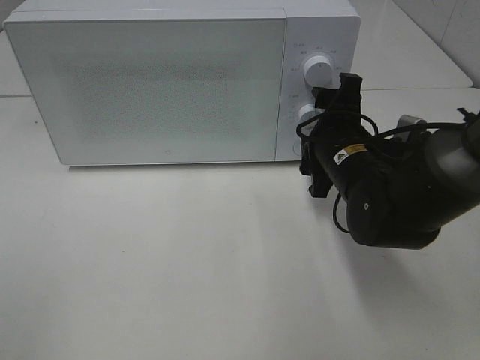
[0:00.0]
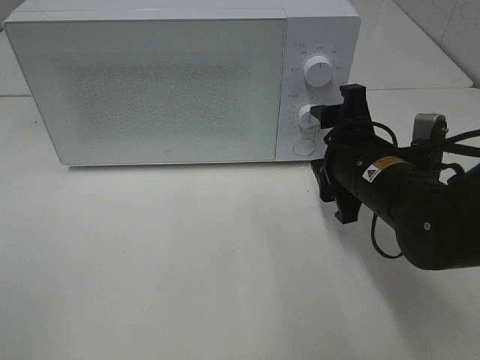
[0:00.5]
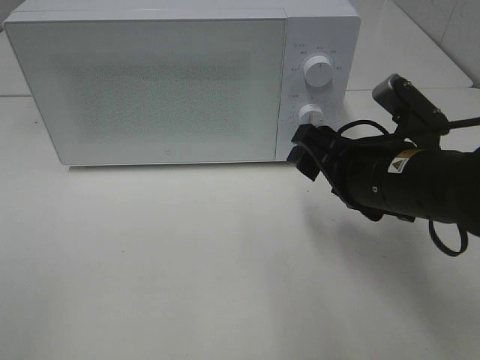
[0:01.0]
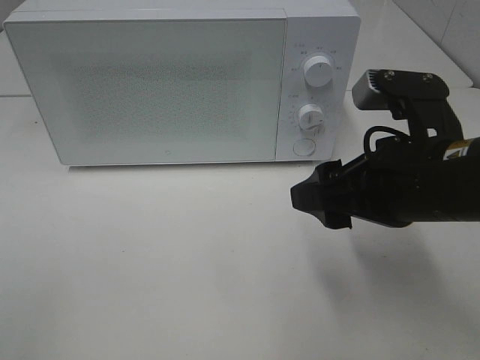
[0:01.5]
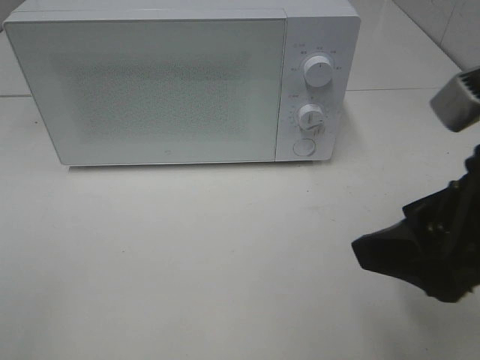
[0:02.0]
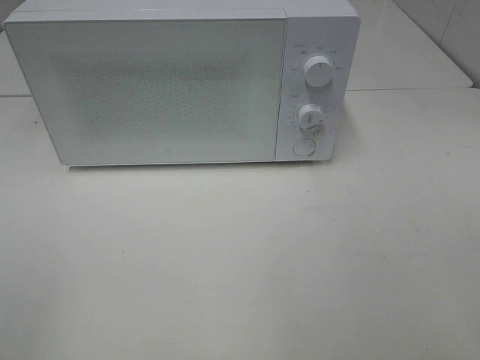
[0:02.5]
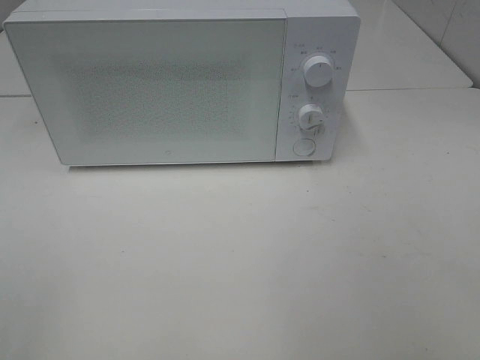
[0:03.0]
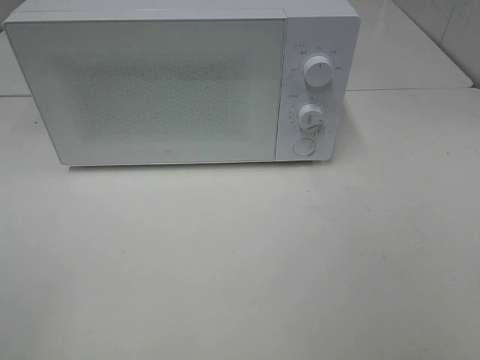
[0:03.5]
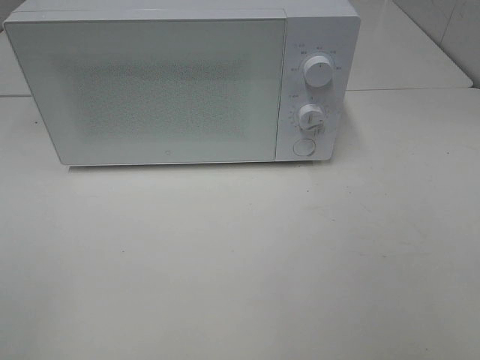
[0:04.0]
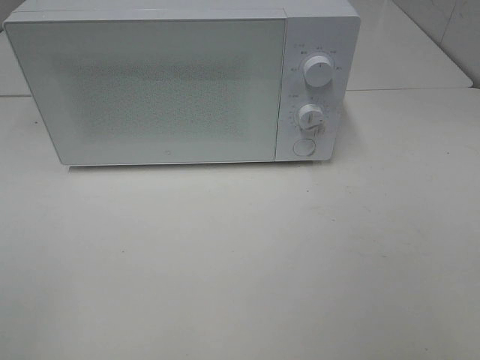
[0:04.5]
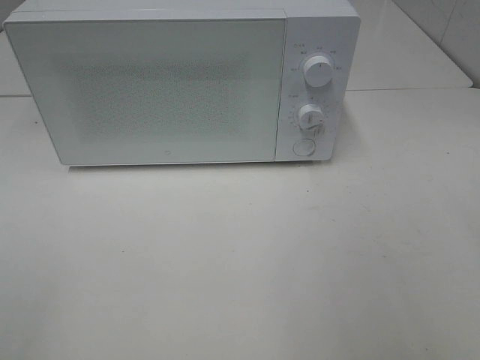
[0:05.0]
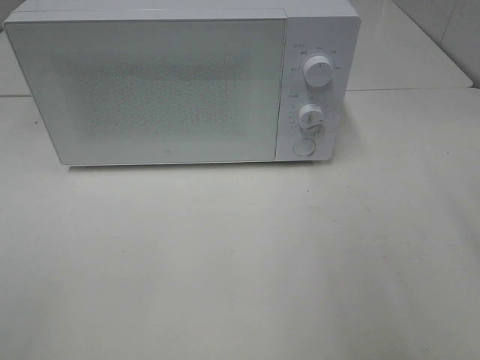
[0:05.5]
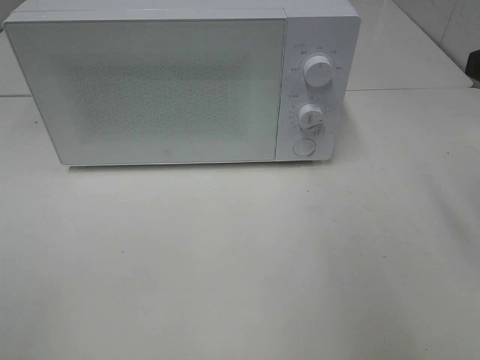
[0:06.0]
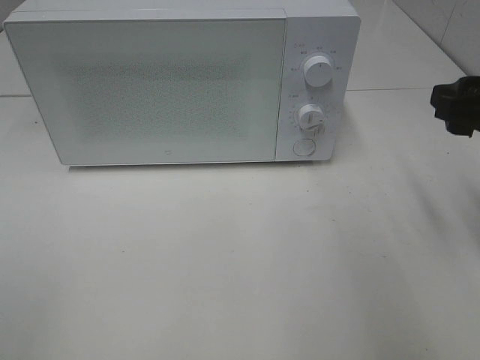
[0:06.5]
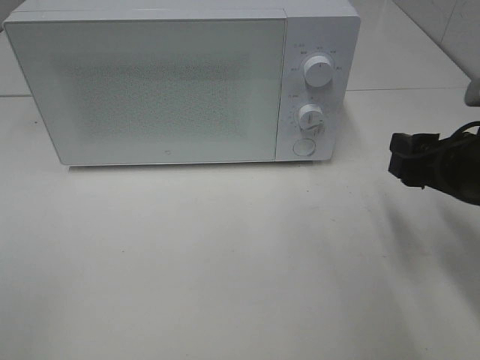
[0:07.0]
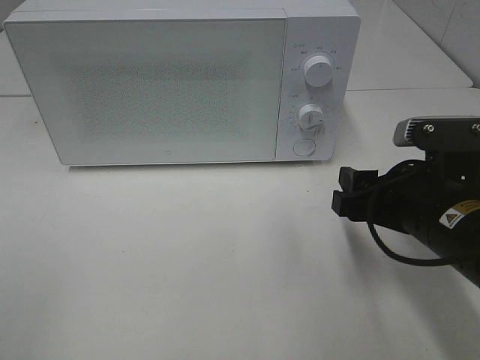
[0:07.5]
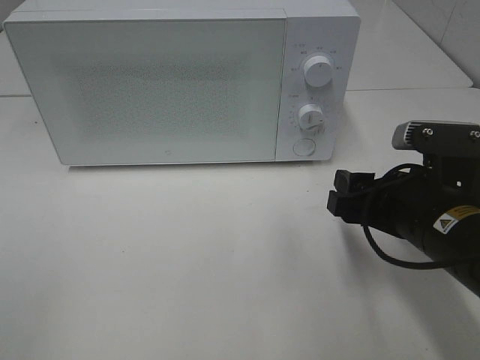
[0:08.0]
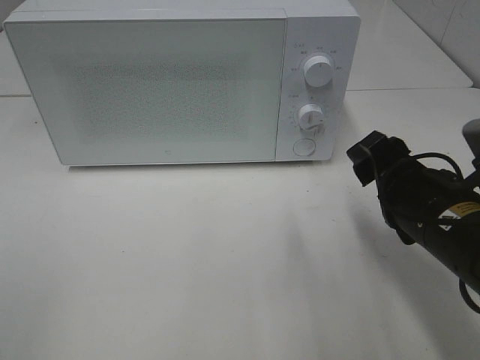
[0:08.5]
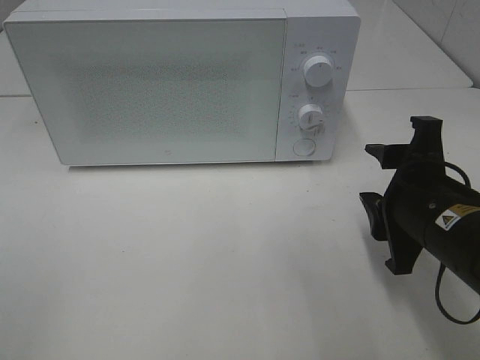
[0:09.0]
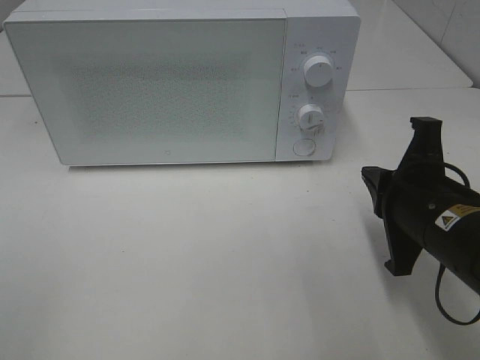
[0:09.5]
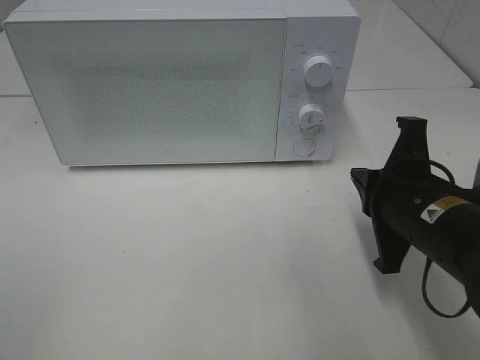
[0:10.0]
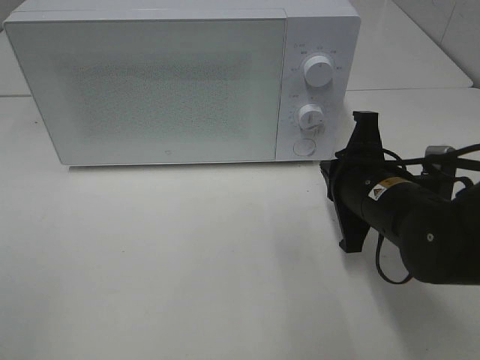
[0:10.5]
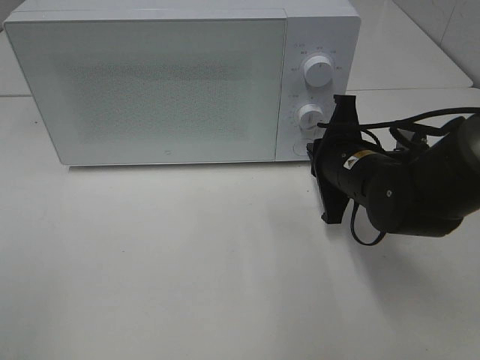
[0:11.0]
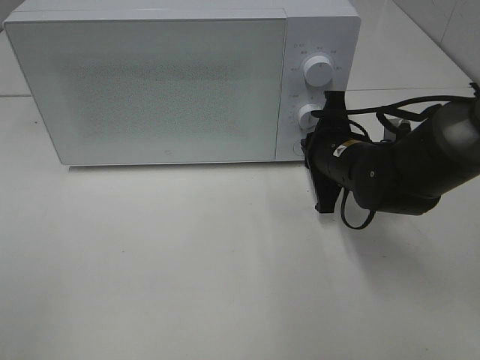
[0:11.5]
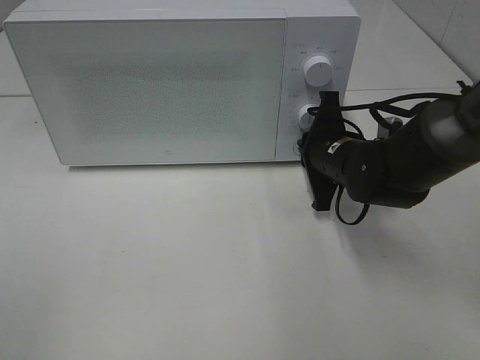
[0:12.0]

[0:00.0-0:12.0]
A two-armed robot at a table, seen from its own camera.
Task of the whole recording: Heat Sandwich.
0:00.0 to 0:02.0: The right gripper is displaced backward and upward by roughly 25 cm.
0:02.0 to 0:04.0: The right gripper shifts roughly 15 cm backward and to the right.
0:06.0 to 0:08.0: The right gripper goes about 15 cm downward and to the left.
0:08.0 to 0:10.0: The right gripper closes its fingers.
0:10.0 to 0:12.0: The right gripper shifts approximately 15 cm forward.

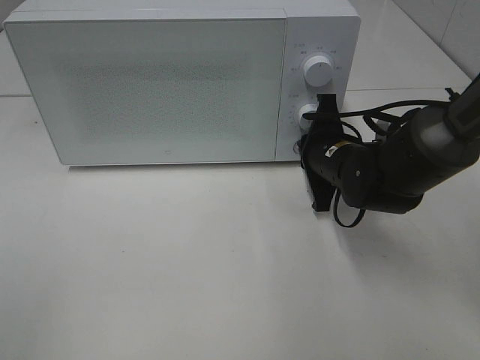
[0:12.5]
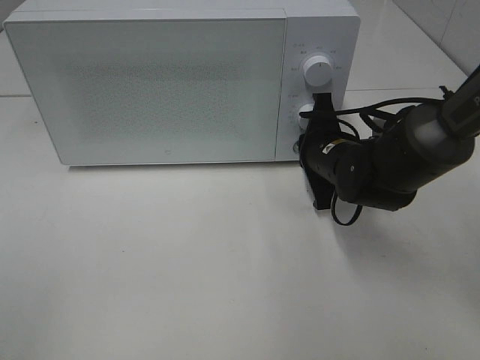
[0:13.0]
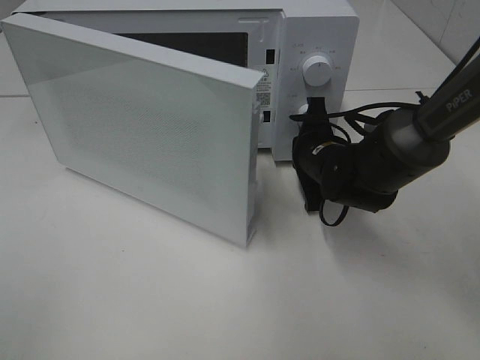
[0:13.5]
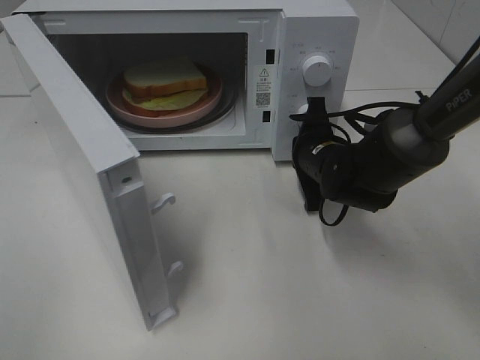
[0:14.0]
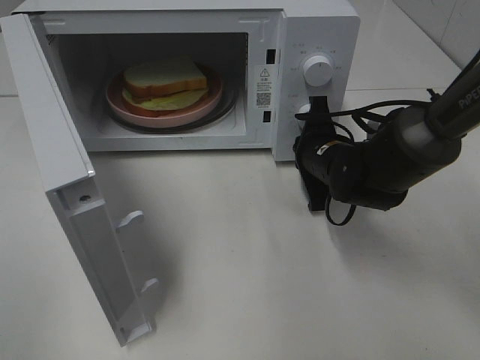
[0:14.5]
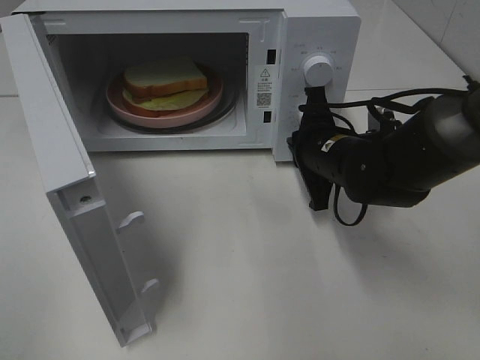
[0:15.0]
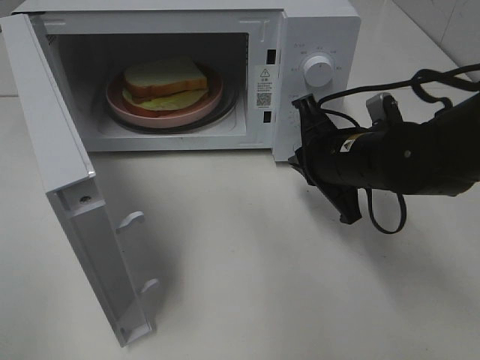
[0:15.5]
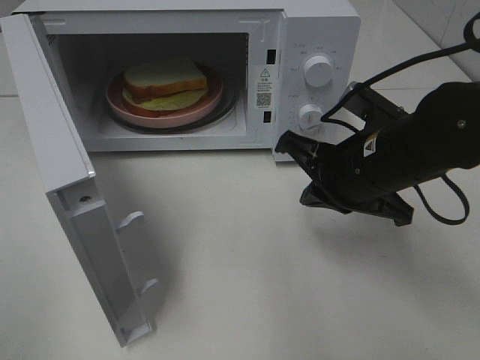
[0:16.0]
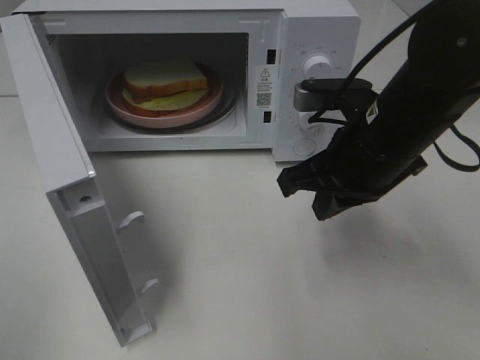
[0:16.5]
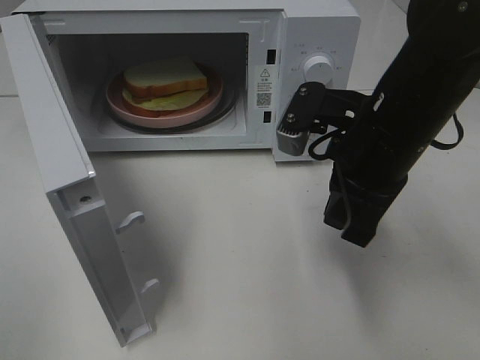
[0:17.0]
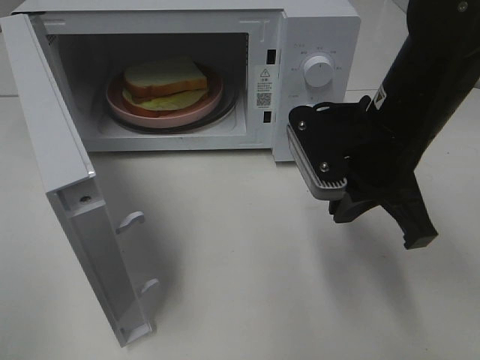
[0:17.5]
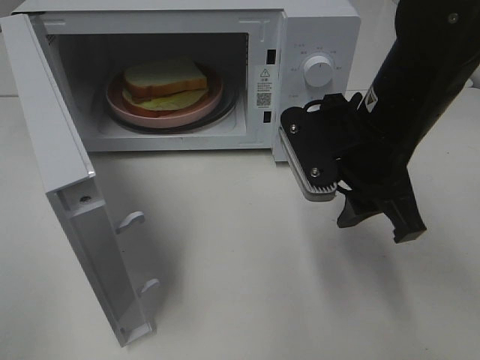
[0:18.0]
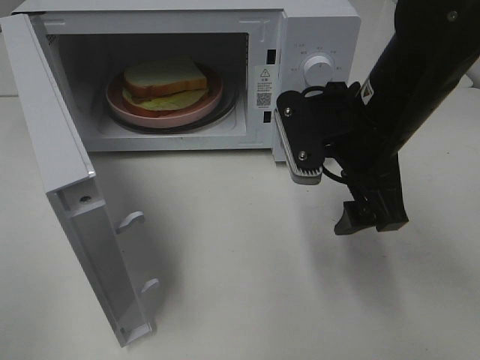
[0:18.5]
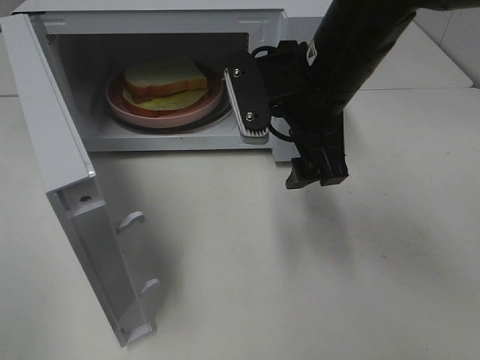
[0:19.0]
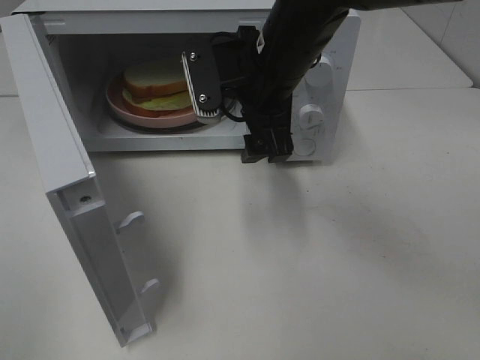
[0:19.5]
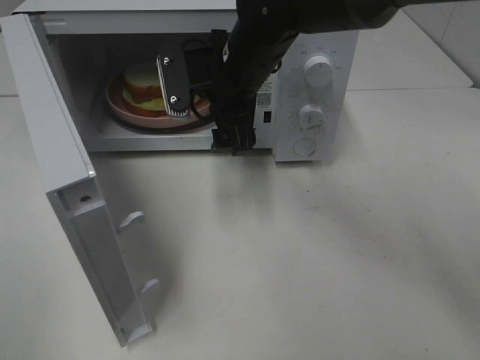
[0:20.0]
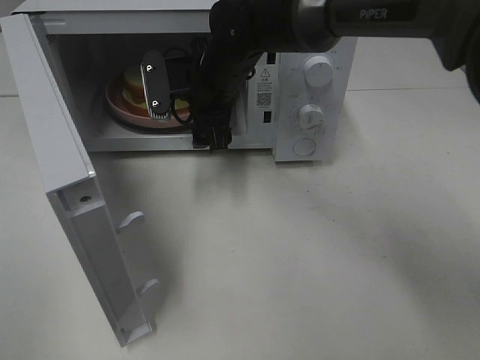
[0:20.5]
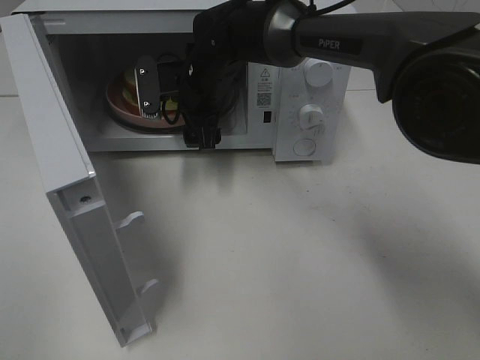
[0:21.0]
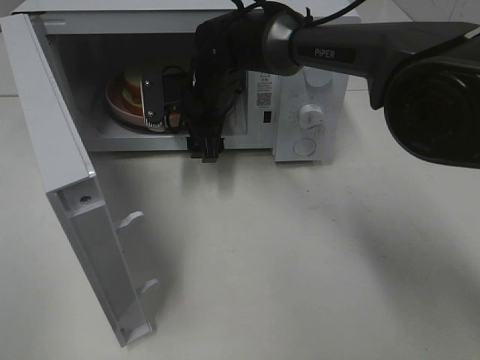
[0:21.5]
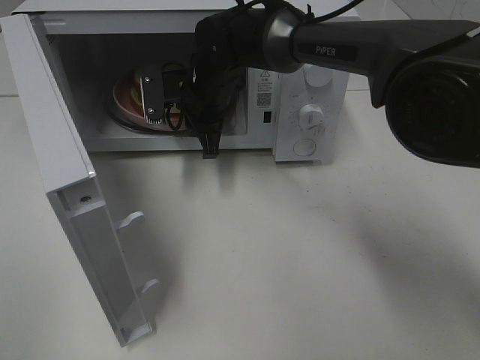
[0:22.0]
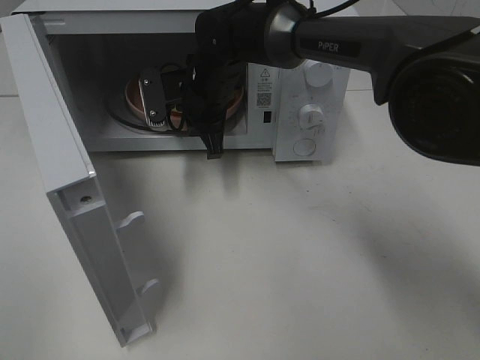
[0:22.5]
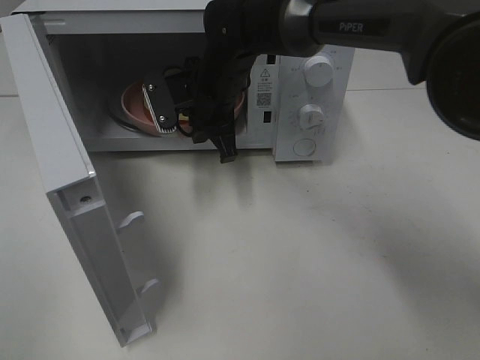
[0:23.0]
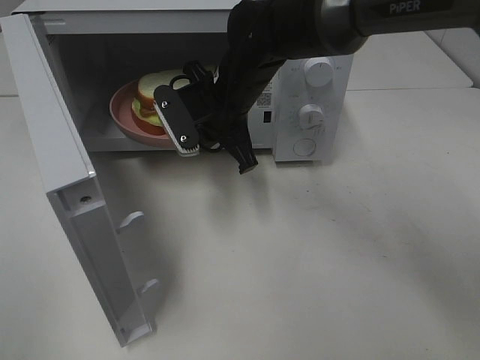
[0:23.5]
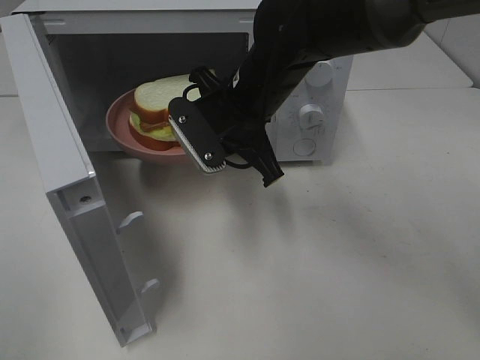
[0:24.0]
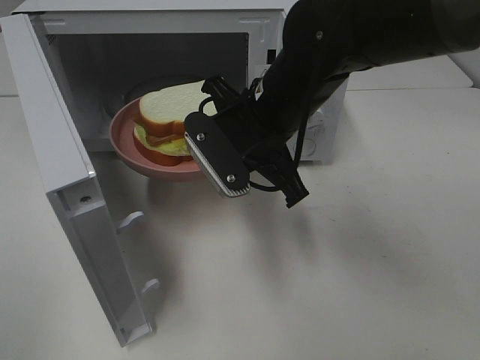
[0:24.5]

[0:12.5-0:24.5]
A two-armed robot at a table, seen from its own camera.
Task of the whole recording: Heat Sandwich.
Step, 0:12.5 to 0:15.0: Right hand: press the switch.
Step, 0:15.5 to 0:22.5: Right hand: grab the plate with the sandwich.
0:14.5 to 0:16.5: The right gripper travels upward and backward by approximately 15 cm.
0:16.5 to 0:18.5: The right gripper opens its fingers.
0:18.5 to 0:20.5: The right gripper is displaced forward and to the left by some 20 cm.
0:20.5 to 0:22.5: The right gripper closes up.
0:22.5 to 0:24.5: The right gripper moves backward and to the right, approximately 15 cm.

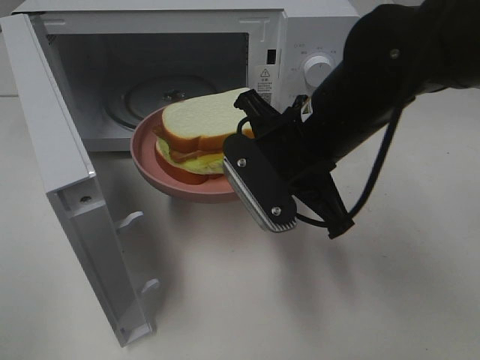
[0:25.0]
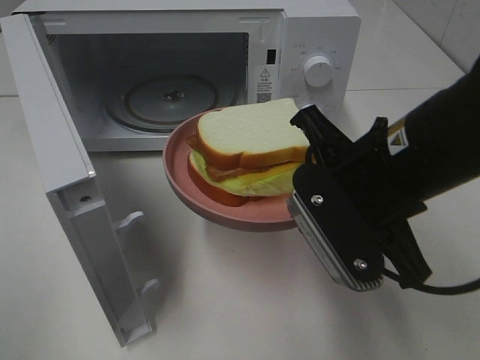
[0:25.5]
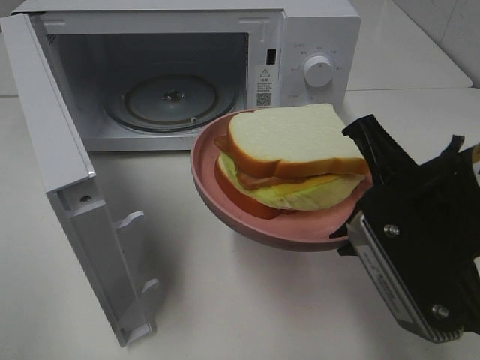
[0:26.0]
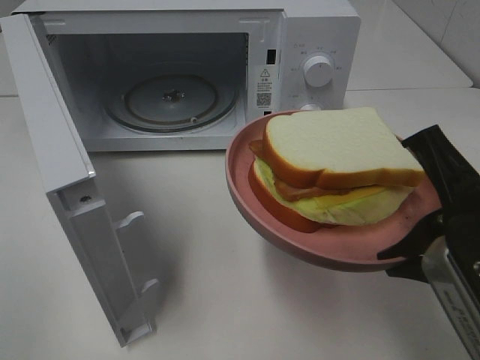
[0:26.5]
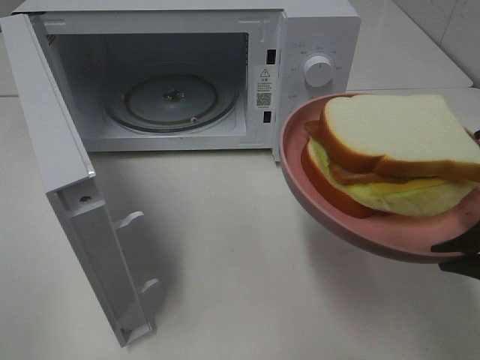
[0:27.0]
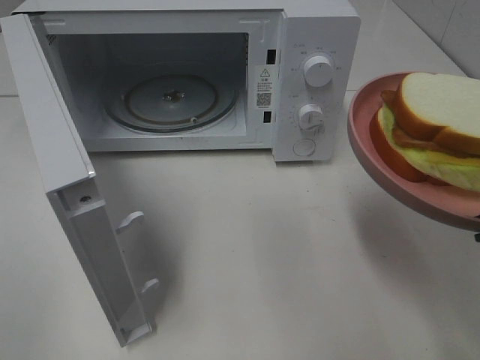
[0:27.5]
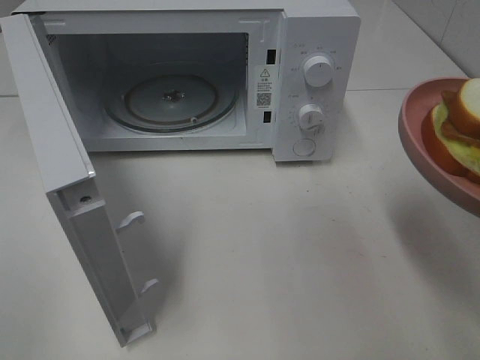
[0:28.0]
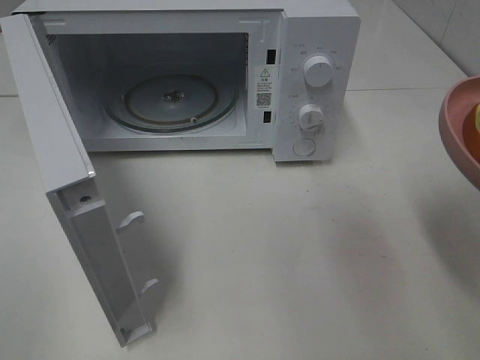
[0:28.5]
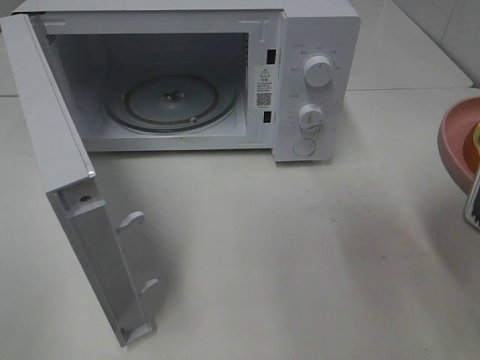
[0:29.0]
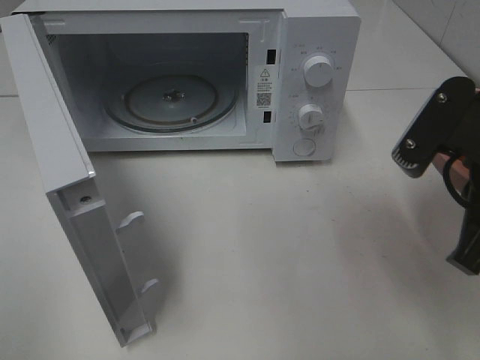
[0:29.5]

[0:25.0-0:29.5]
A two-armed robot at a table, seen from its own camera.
Task of the whole recording: Heat Sandwich.
0:25.0 to 0:27.0: The right gripper moves backward and to the right, approximately 20 cm.
0:27.0 to 0:29.5: The right gripper heads forward, covering about 5 cm.
